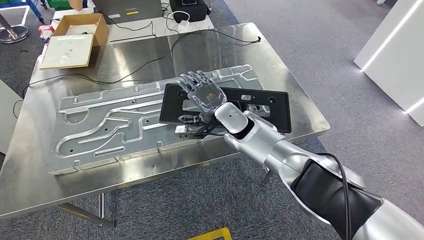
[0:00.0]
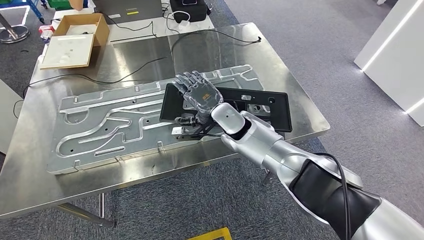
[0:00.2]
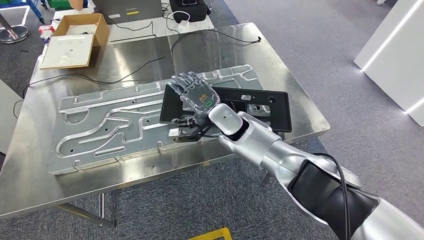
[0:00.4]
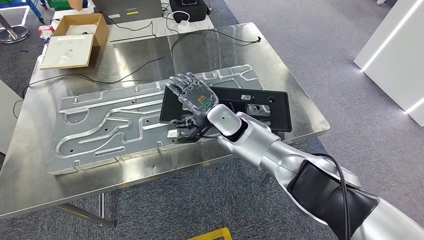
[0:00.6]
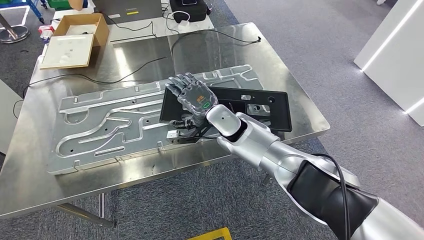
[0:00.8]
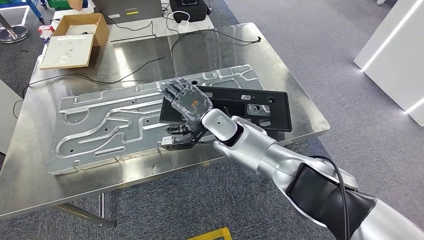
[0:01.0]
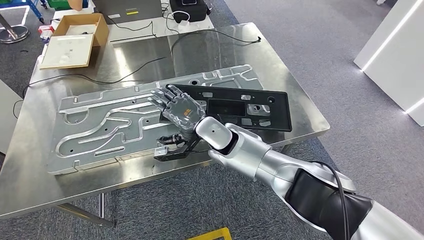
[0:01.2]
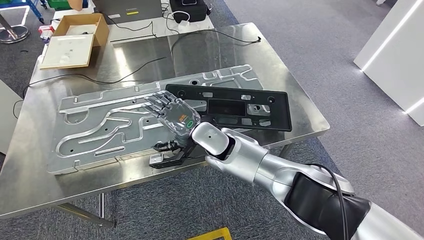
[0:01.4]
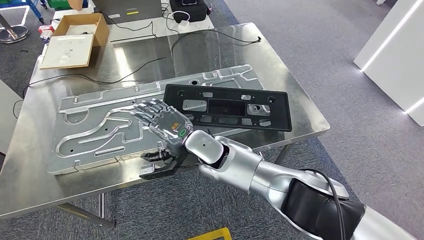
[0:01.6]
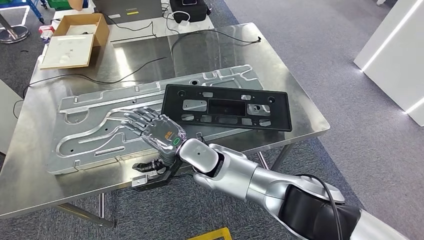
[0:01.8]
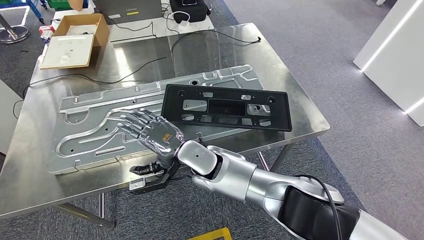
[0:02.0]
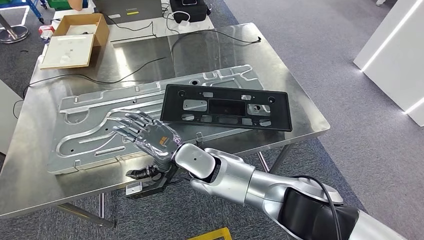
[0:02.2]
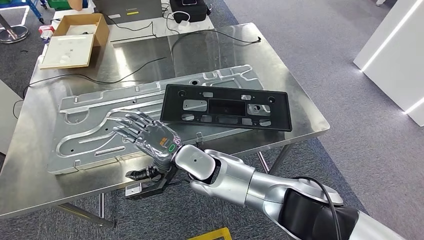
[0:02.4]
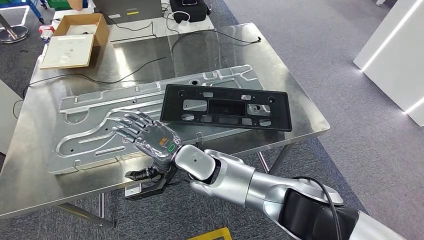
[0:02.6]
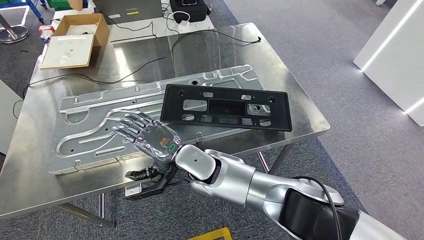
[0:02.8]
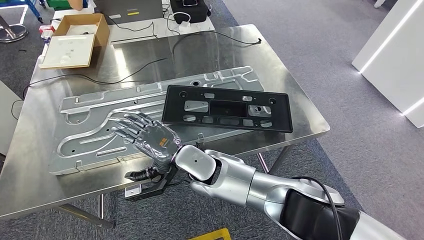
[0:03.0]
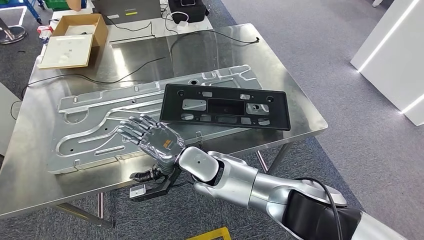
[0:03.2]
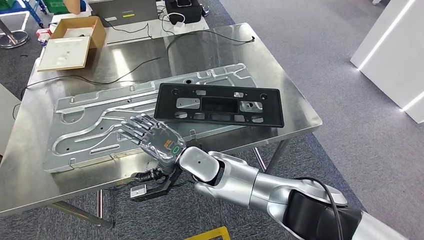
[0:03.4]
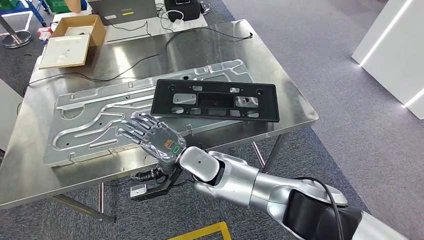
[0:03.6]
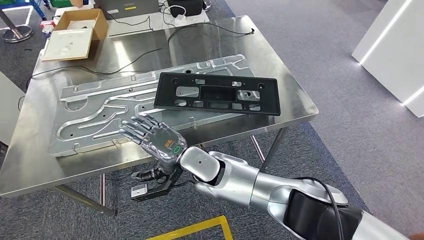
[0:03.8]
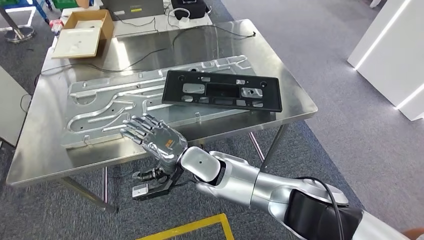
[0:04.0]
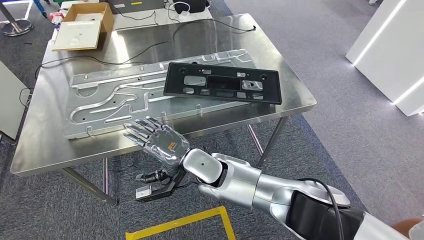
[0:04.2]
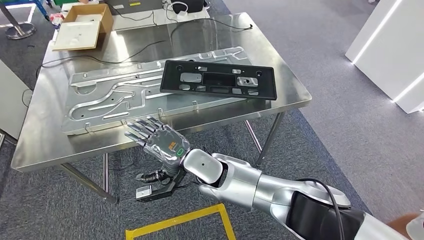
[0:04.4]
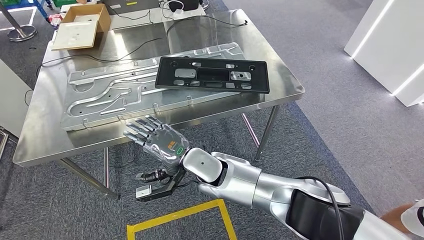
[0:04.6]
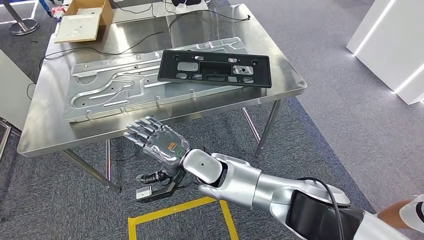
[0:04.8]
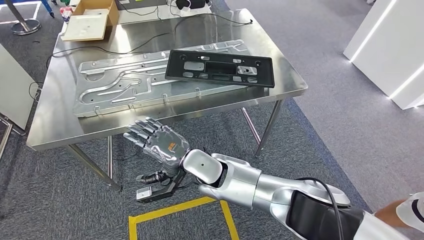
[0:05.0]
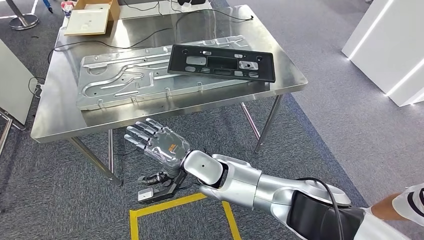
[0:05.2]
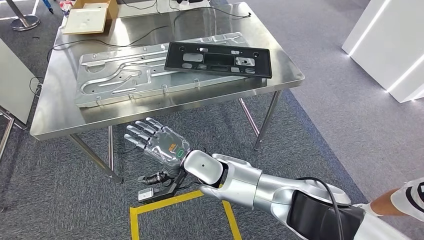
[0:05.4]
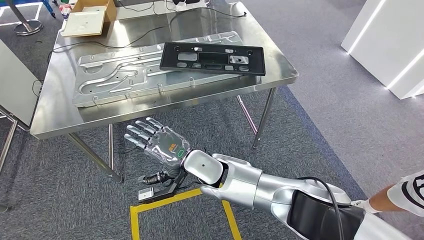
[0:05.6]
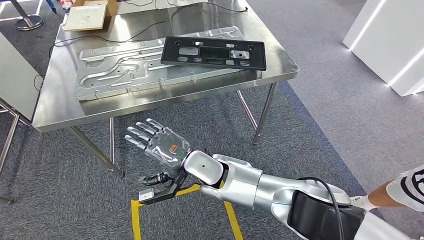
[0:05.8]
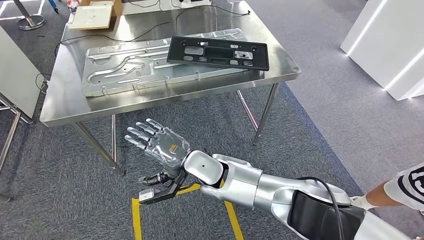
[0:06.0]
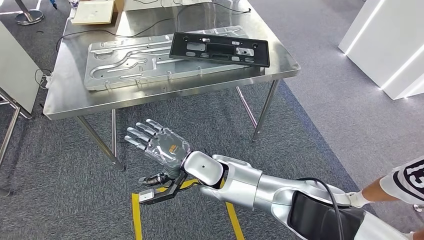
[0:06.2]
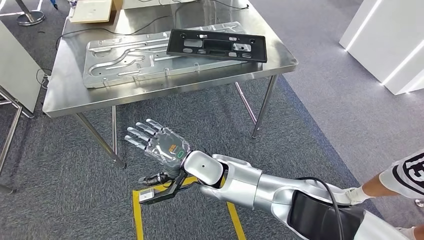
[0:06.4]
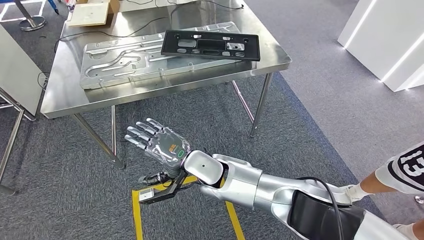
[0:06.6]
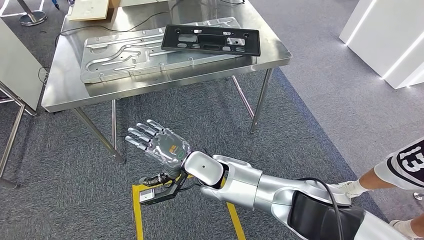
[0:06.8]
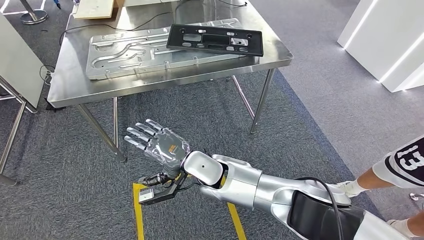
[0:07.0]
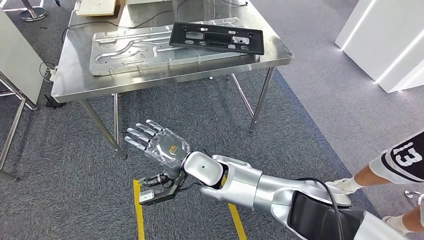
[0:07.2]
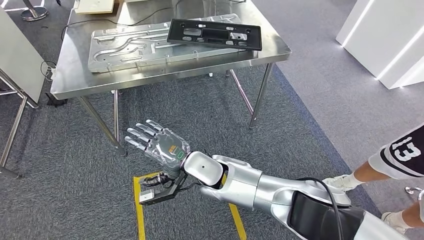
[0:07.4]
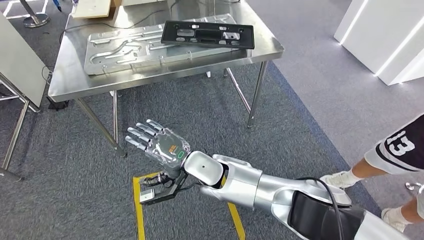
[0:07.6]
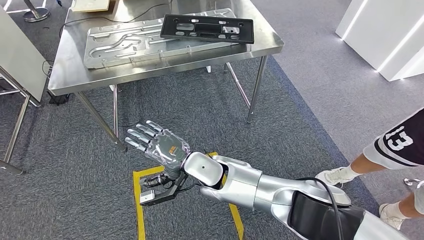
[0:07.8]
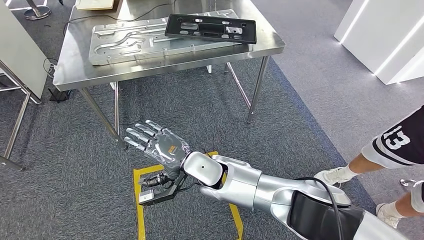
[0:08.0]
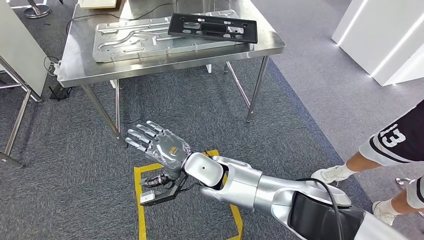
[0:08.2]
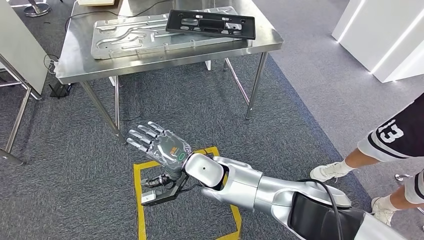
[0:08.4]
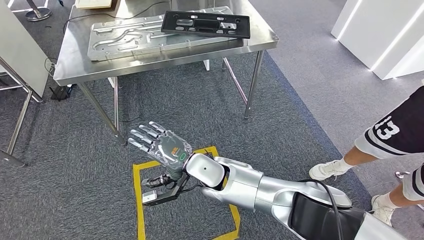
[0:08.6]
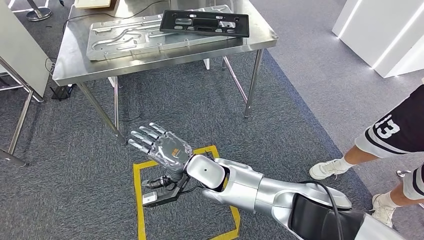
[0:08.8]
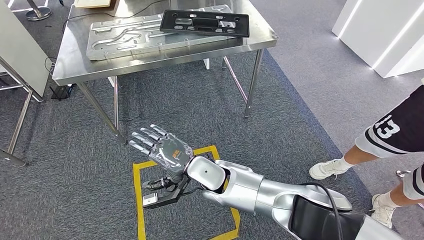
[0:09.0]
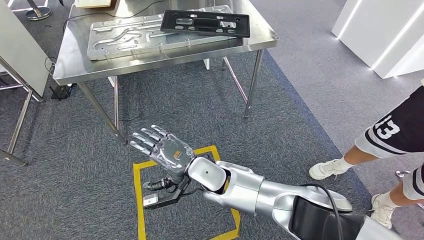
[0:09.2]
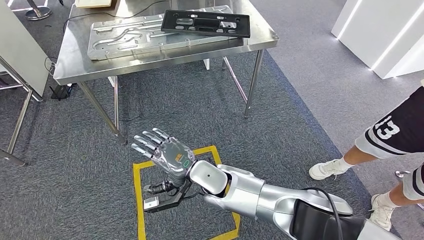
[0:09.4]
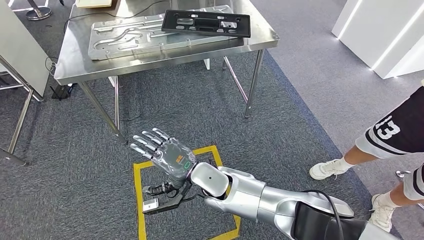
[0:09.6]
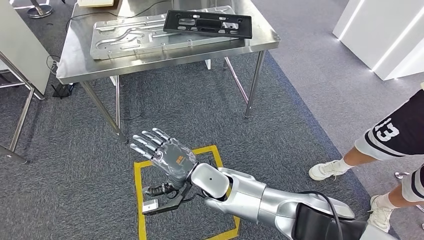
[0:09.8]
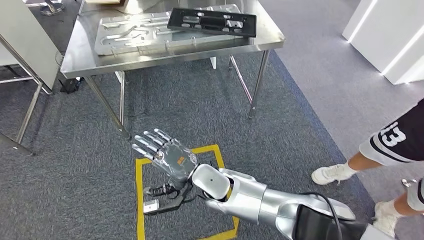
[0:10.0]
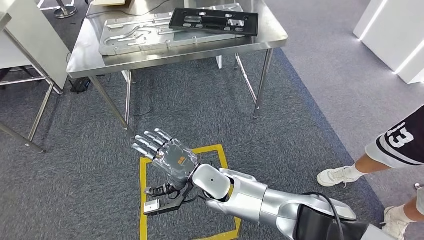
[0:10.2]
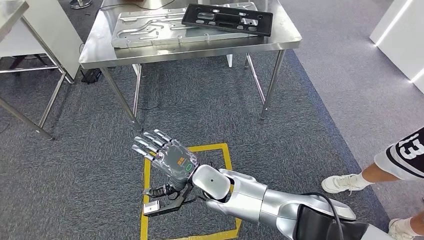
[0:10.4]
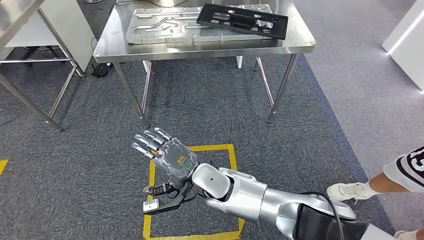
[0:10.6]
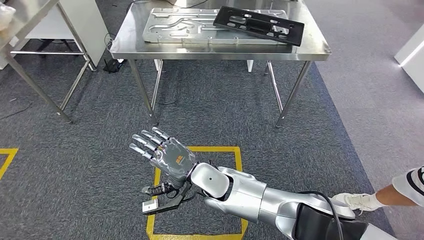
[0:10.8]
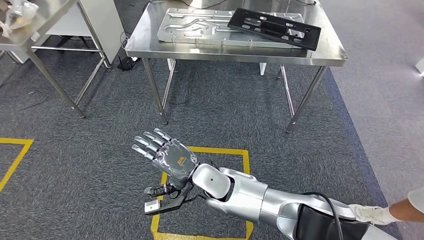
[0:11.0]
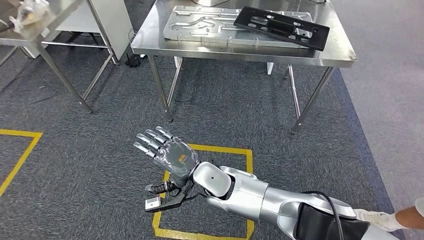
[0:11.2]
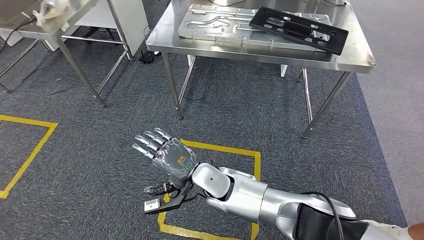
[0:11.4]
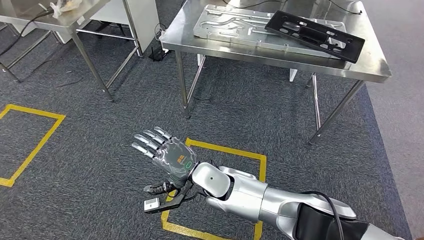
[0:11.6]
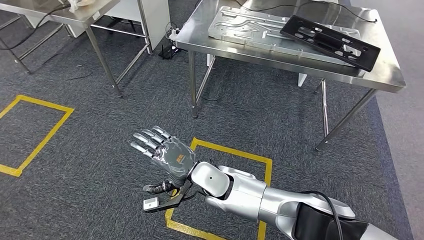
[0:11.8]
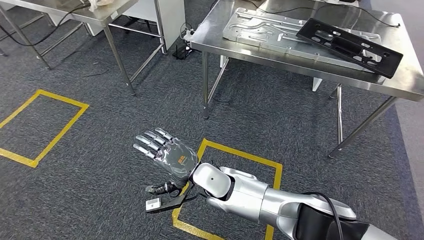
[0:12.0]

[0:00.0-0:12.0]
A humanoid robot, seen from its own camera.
Step, 0:00.0 to 0:02.8: Insert the large material into the corresponding slot on the workbench.
0:00.0 to 0:01.6: The right hand moves to the left, roughly 10 cm.
0:01.6 to 0:03.0: There are only small adjustments of the hands.

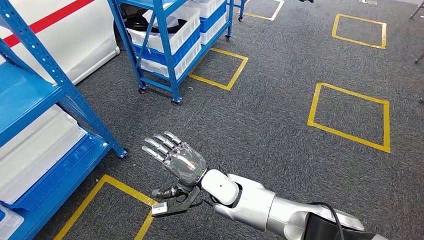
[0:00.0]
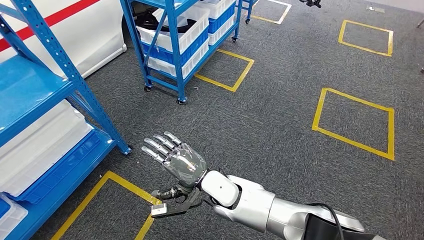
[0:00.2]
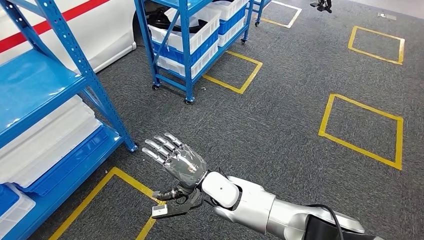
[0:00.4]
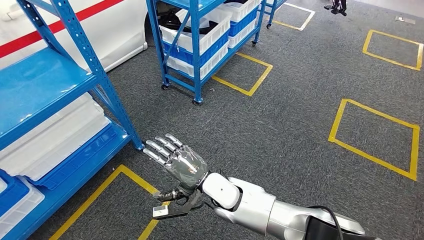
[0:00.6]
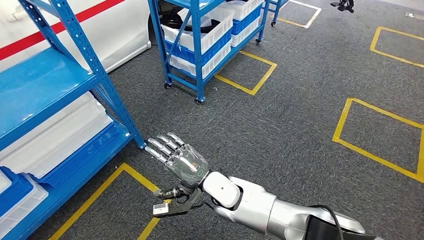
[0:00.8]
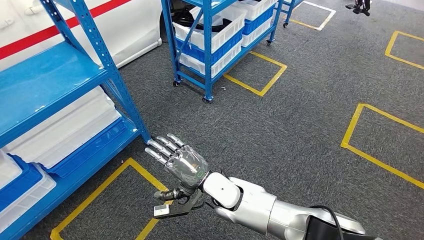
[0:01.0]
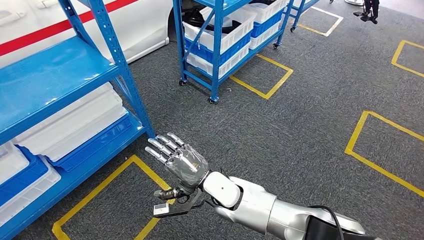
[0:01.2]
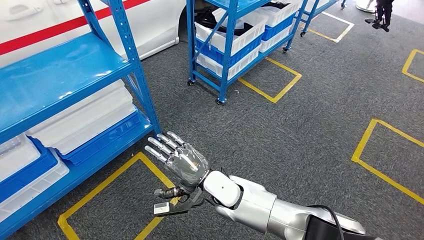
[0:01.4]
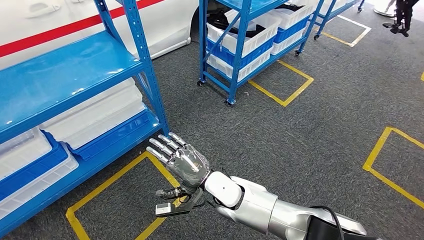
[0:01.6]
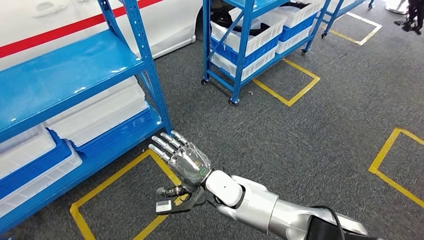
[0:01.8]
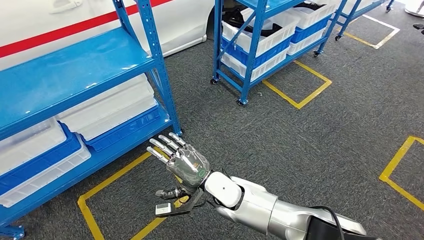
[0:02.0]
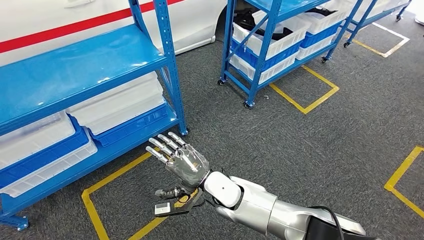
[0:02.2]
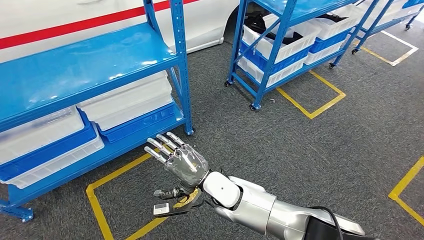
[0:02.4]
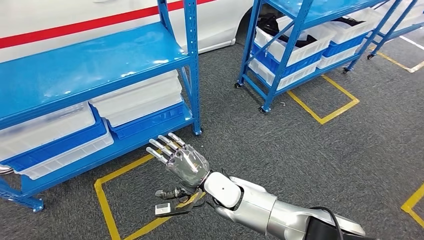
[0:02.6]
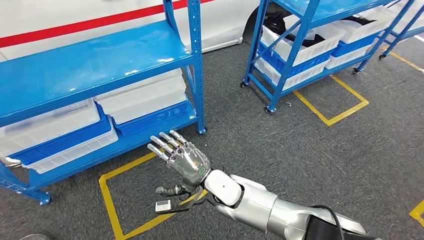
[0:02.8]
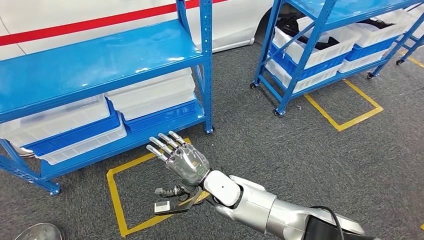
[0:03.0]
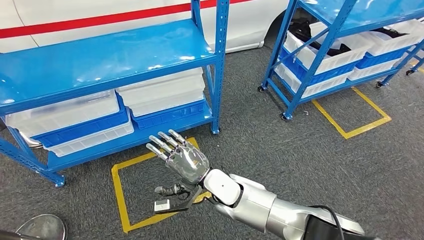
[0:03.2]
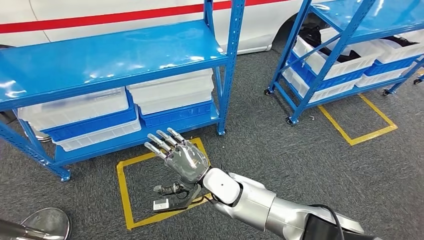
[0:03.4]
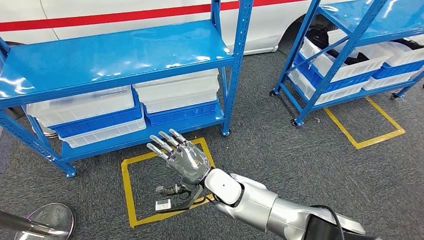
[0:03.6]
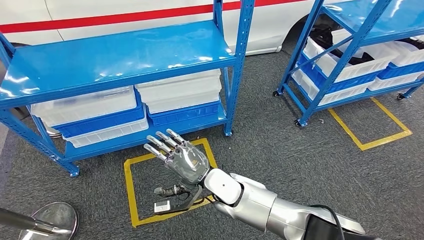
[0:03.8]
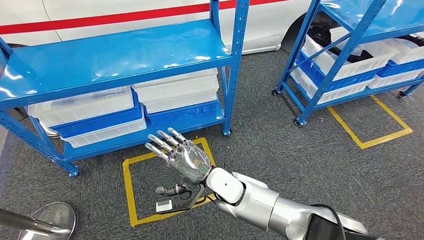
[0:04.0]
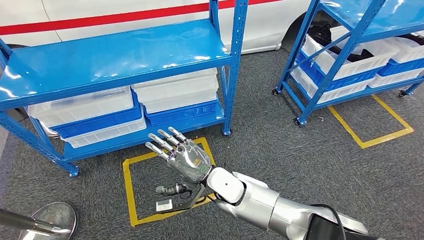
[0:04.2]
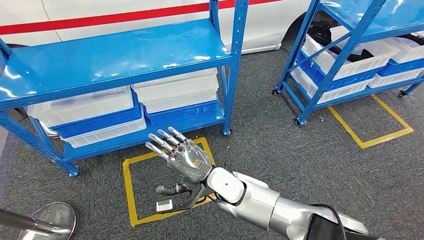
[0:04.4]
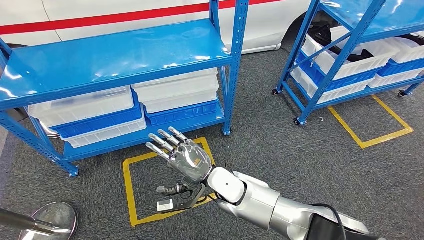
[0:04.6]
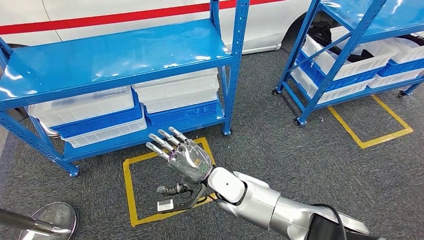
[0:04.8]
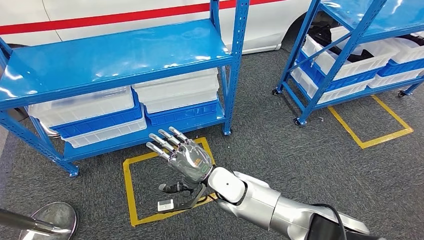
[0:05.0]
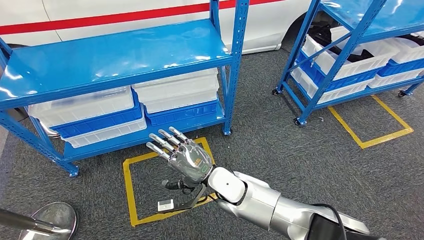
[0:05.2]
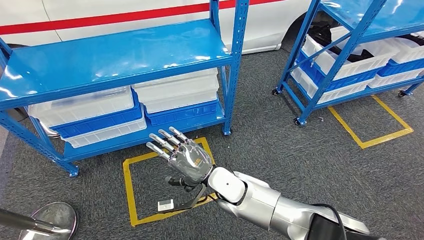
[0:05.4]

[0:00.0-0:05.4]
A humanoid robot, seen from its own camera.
0:04.0 to 0:05.4: Neither hand changes place.
